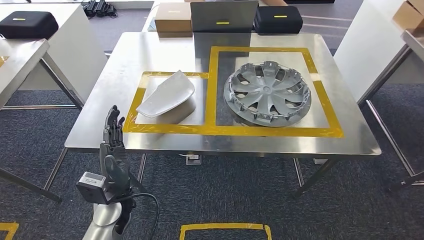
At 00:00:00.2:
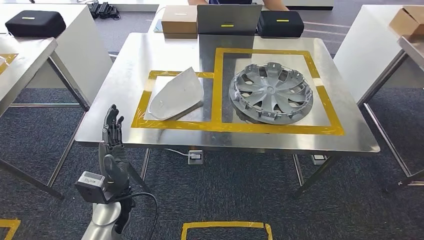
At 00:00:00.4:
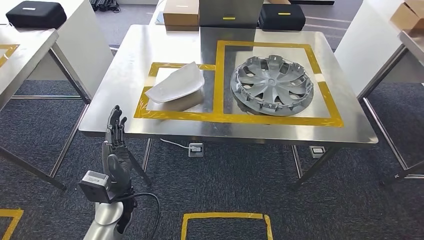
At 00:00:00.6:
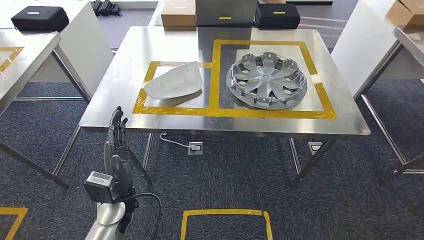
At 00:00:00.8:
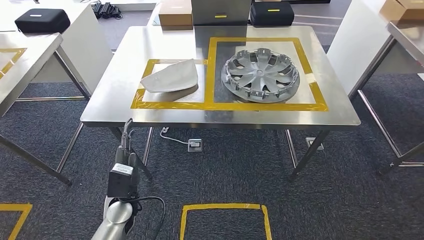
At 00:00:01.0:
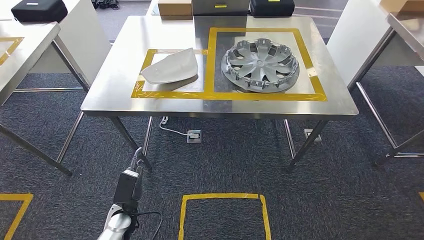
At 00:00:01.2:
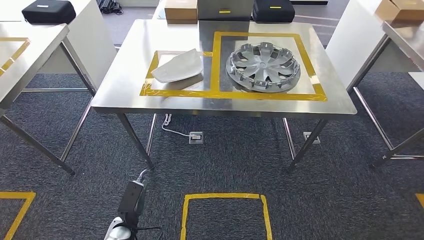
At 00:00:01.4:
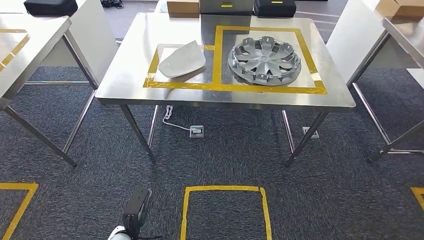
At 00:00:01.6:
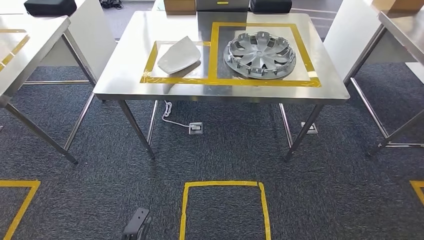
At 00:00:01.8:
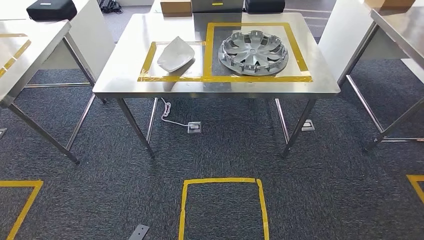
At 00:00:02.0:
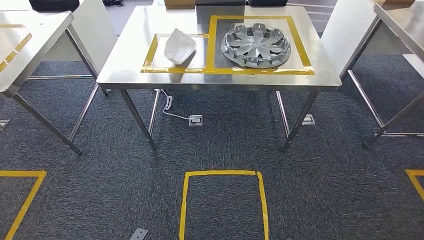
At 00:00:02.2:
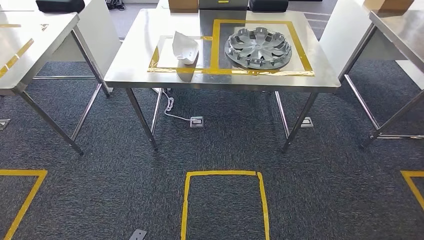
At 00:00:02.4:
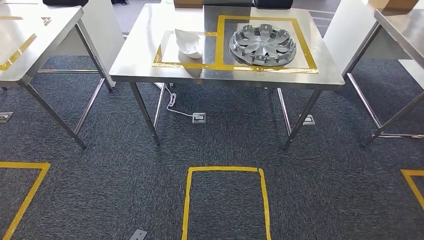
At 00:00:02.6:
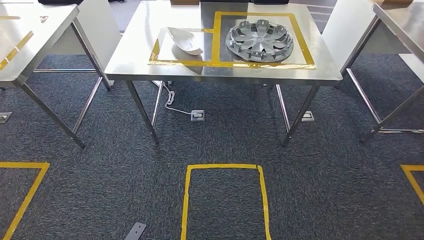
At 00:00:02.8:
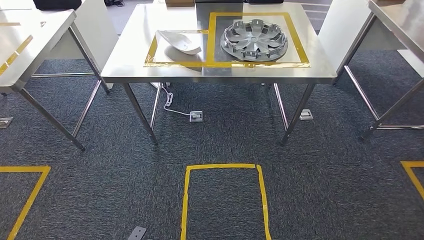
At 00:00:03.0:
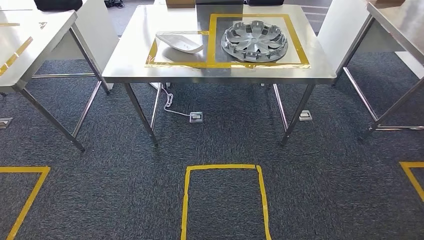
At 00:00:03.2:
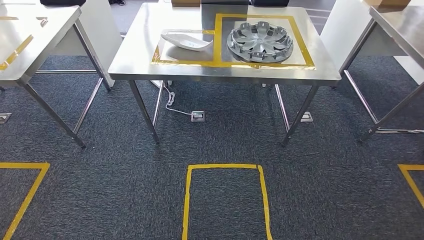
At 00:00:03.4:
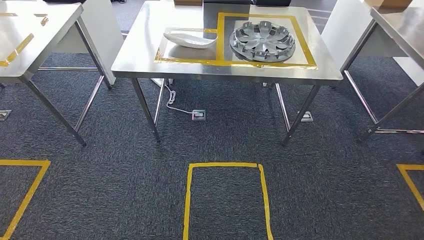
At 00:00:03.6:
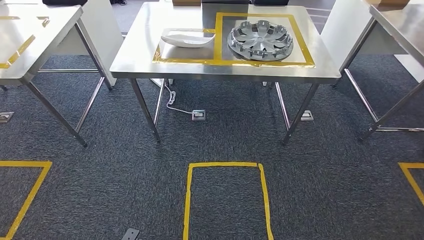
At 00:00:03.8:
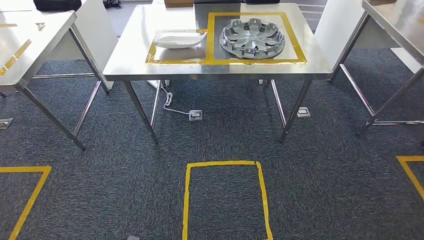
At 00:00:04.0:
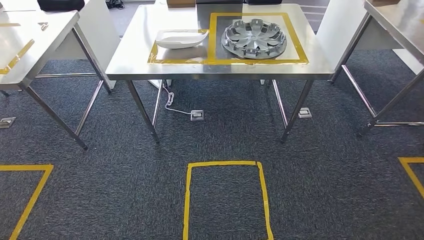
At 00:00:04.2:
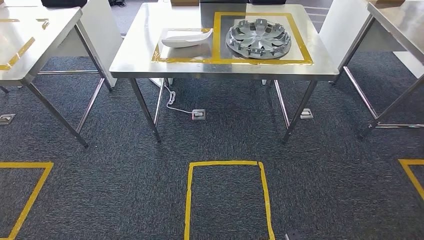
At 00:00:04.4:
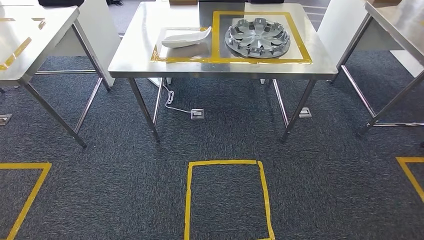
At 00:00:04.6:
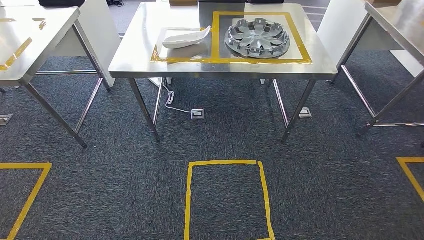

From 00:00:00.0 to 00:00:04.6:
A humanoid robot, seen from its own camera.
Step, from 00:00:00.0 to 00:00:04.6: Move to the initial position at the workbench.
From 00:00:03.0 to 00:00:04.6: The right hand swings forward and backward, some 10 cm each way, with 2 reversals.
